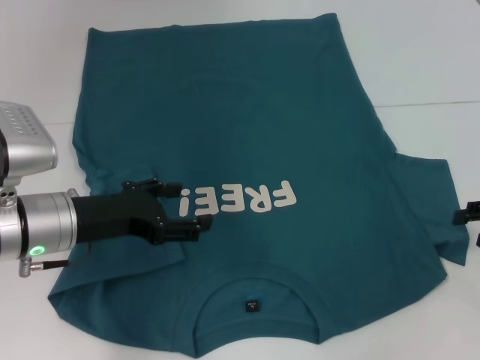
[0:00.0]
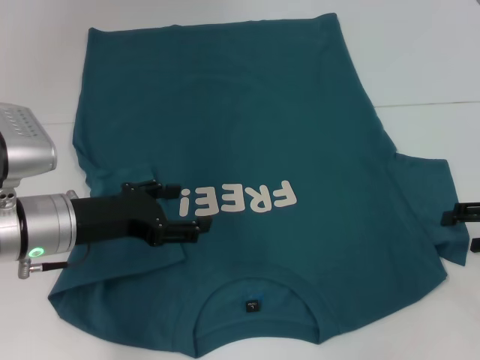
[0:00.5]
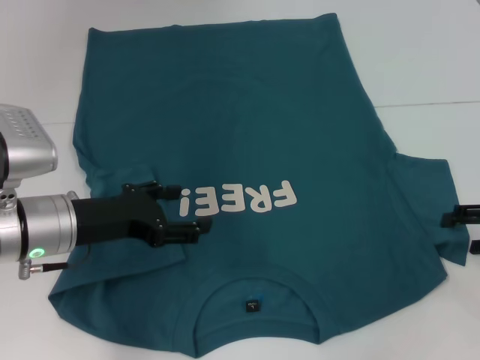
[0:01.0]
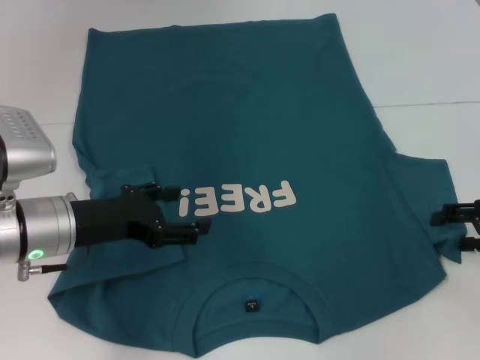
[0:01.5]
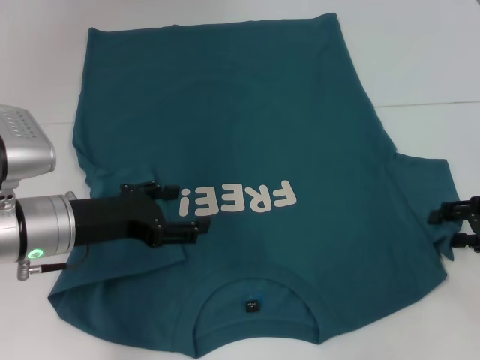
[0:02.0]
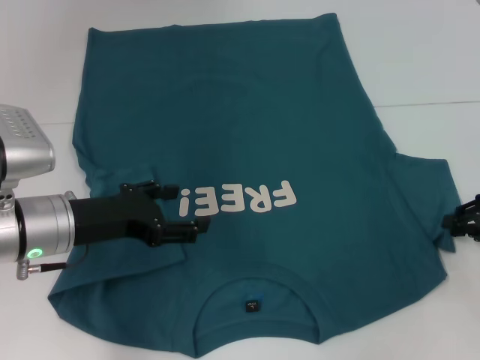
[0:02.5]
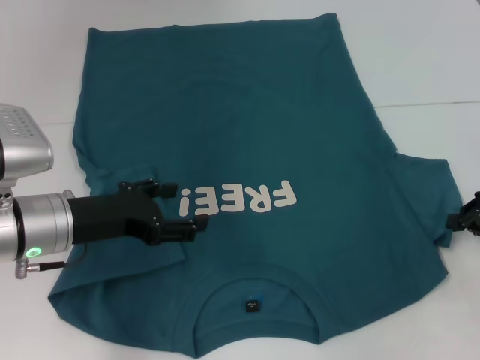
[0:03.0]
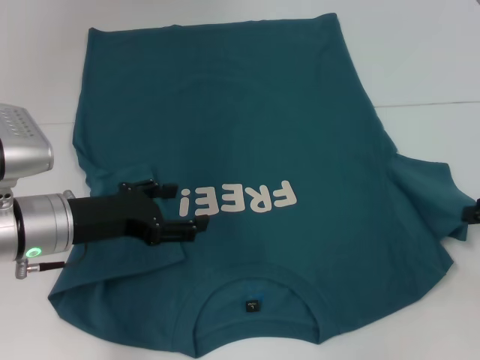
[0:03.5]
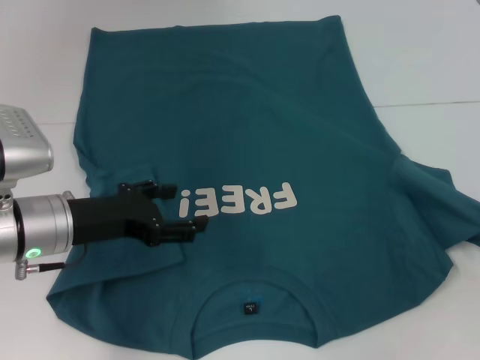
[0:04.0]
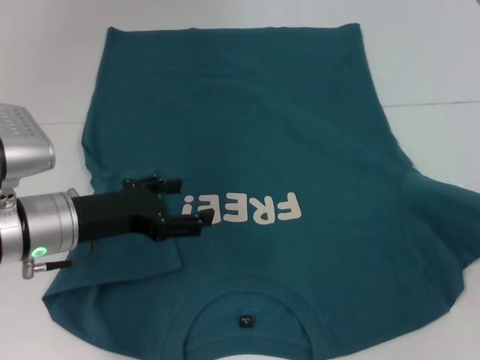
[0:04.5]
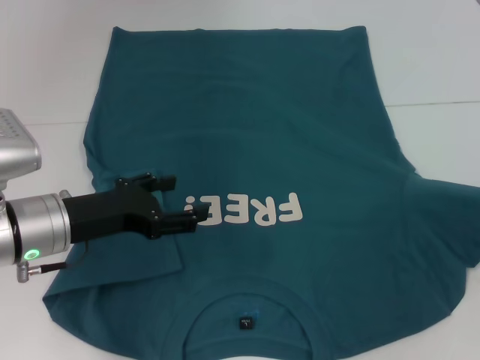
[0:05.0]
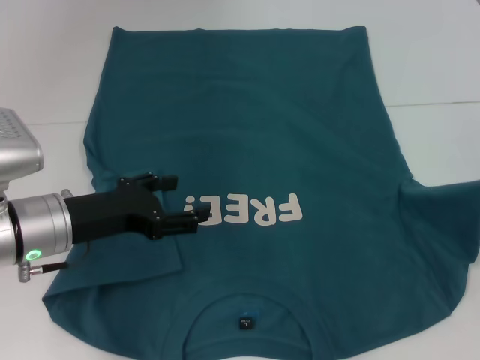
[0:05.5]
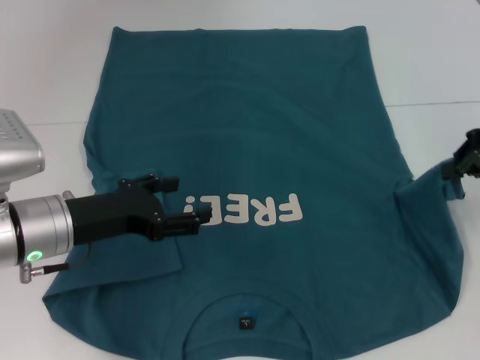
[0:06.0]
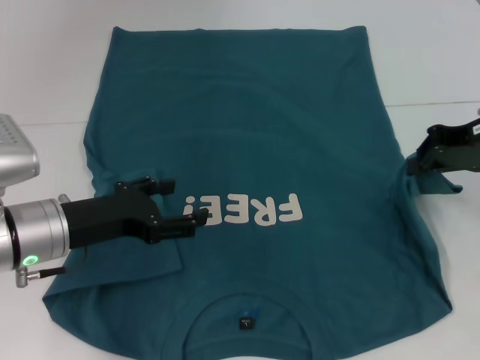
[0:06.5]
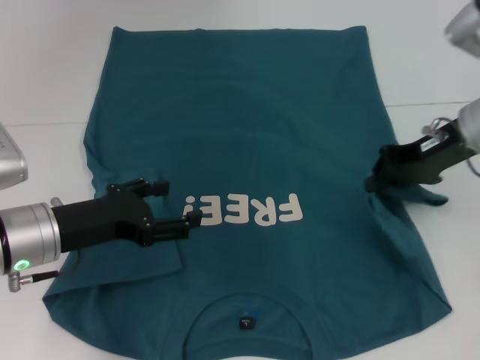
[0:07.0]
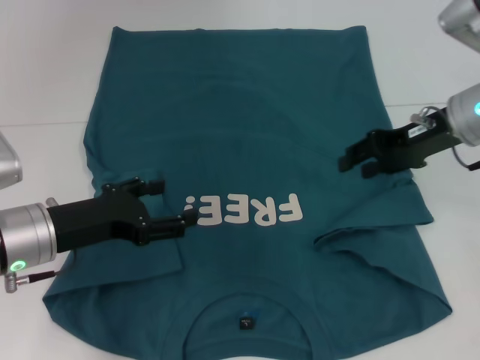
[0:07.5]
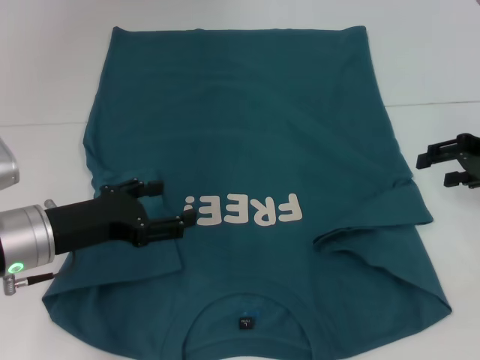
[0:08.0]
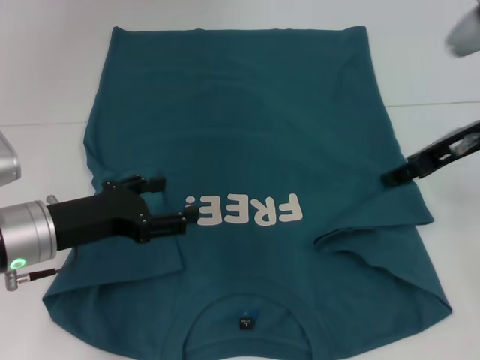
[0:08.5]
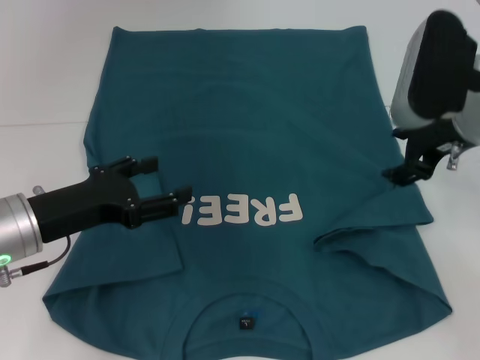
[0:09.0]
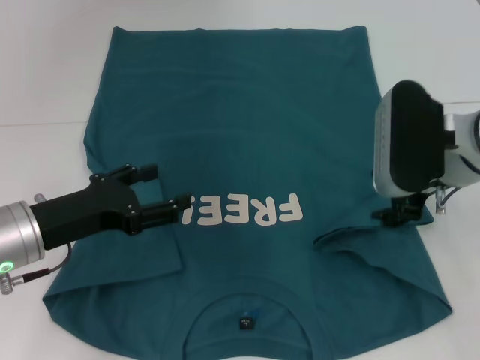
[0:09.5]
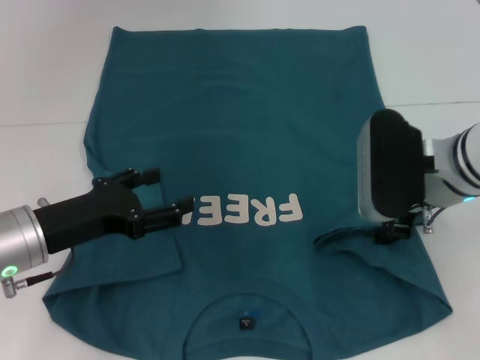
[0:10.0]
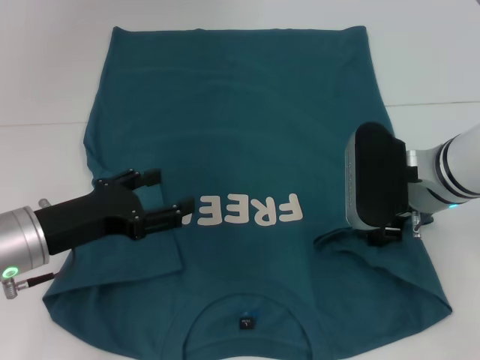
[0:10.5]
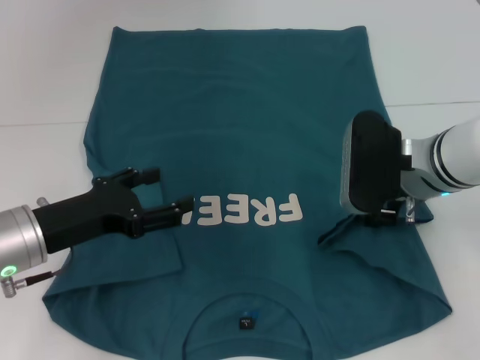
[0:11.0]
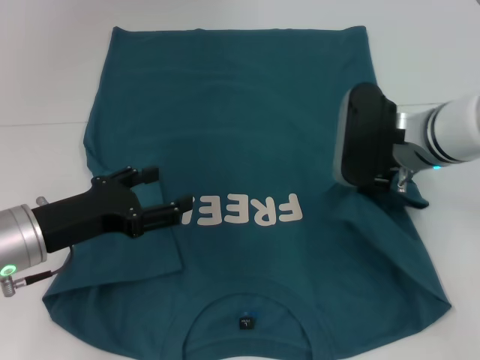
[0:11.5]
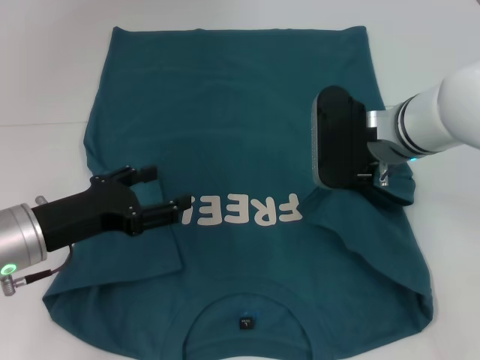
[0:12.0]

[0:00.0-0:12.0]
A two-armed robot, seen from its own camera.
0.0 to 2.0 s: The right gripper opens up.
2.0 to 4.0 s: The right gripper shifts by roughly 5 cm, and closes its fingers.
4.0 to 6.0 s: The right gripper heads upward, to the left and forward, covering about 10 cm.
6.0 to 8.0 s: The right gripper travels to the left and back again, some 10 cm each way, and opens up.
8.0 to 10.0 s: The right gripper is displaced to the left by about 15 cm.
10.0 to 12.0 s: The right gripper moves approximately 5 cm.

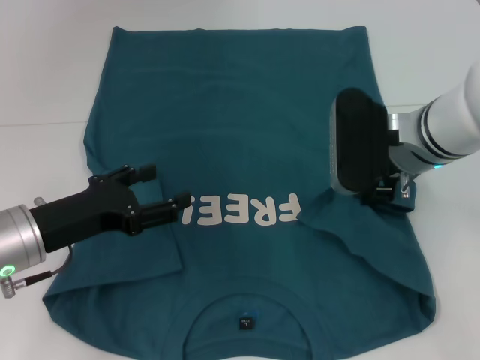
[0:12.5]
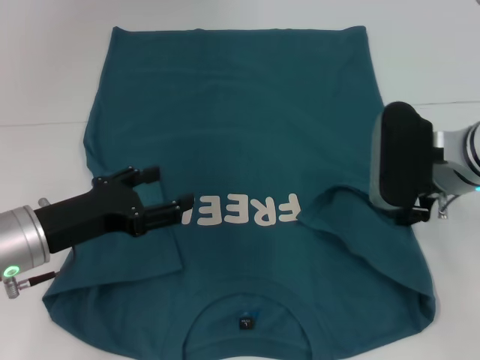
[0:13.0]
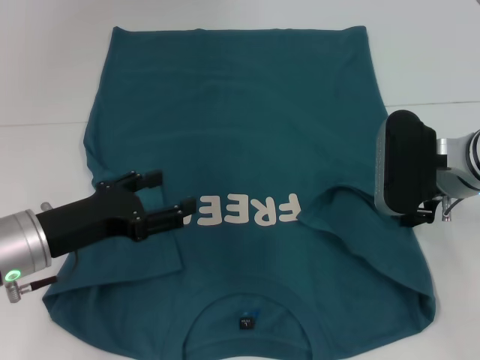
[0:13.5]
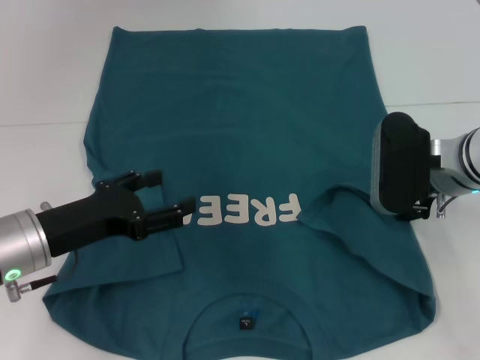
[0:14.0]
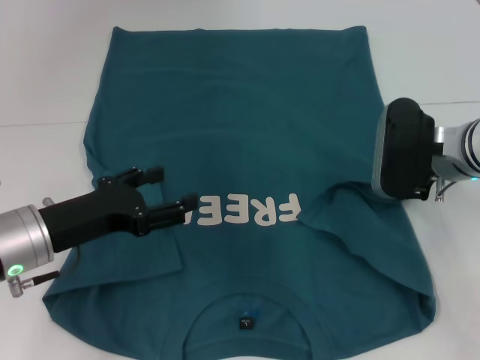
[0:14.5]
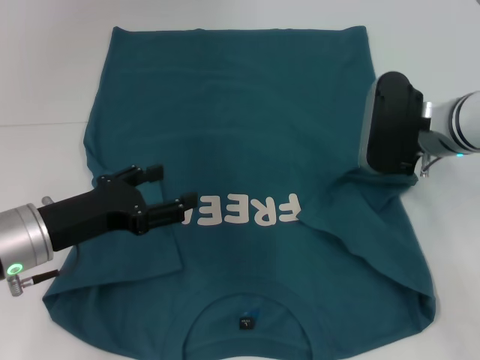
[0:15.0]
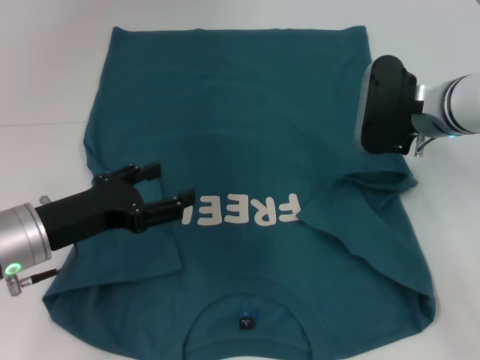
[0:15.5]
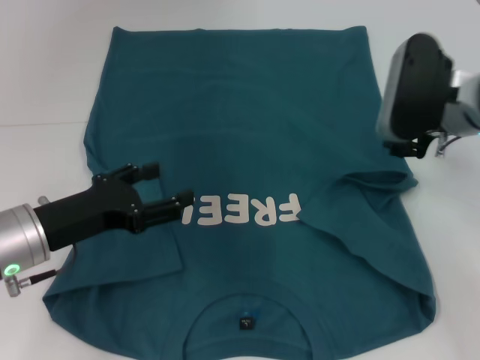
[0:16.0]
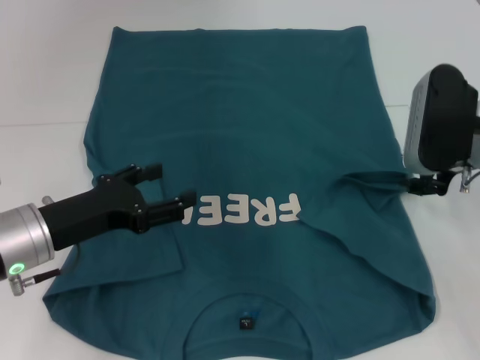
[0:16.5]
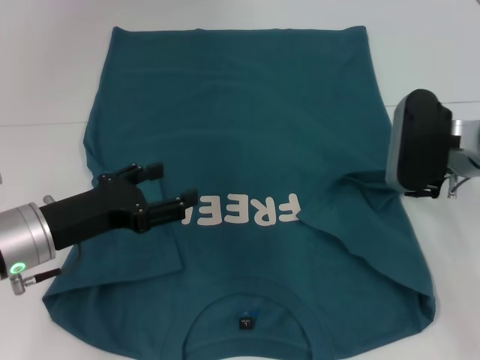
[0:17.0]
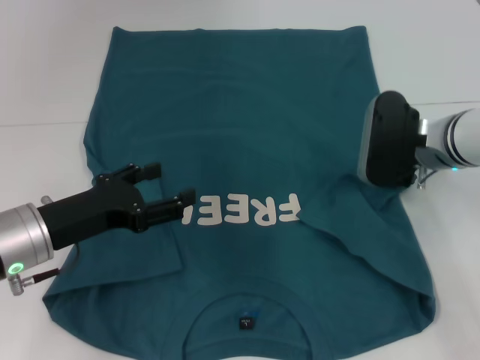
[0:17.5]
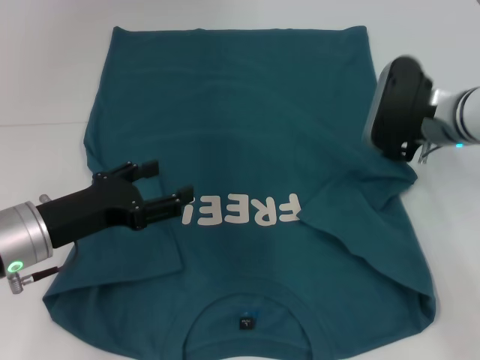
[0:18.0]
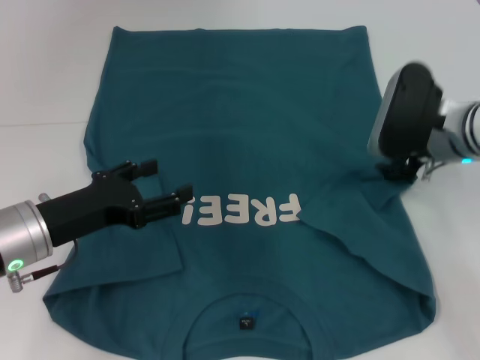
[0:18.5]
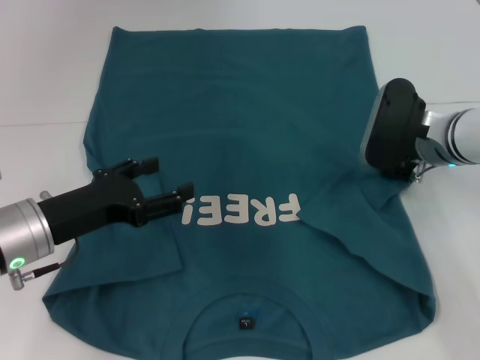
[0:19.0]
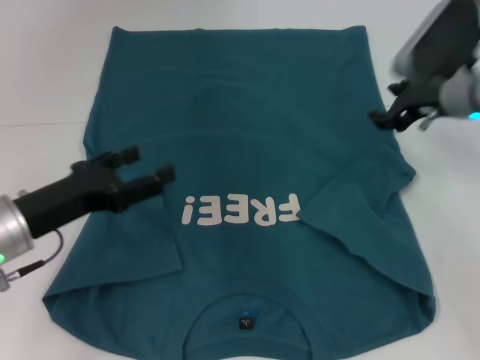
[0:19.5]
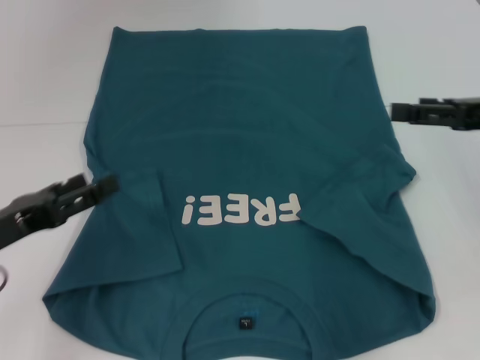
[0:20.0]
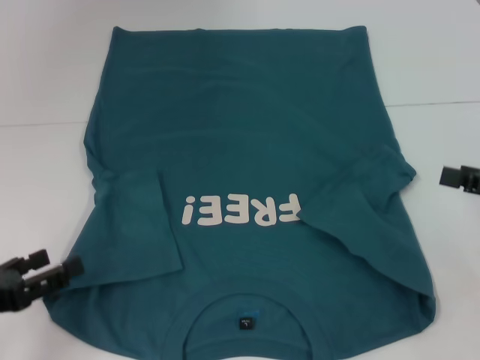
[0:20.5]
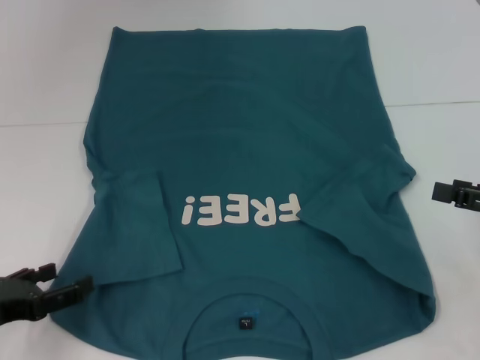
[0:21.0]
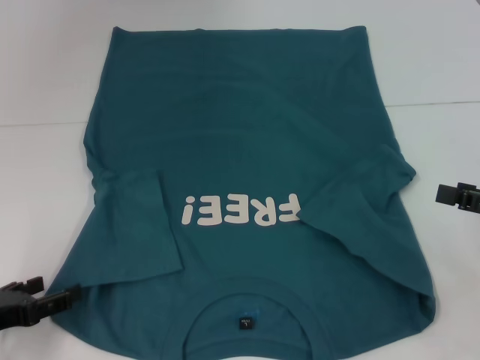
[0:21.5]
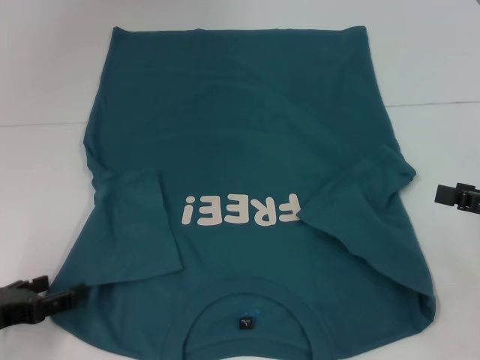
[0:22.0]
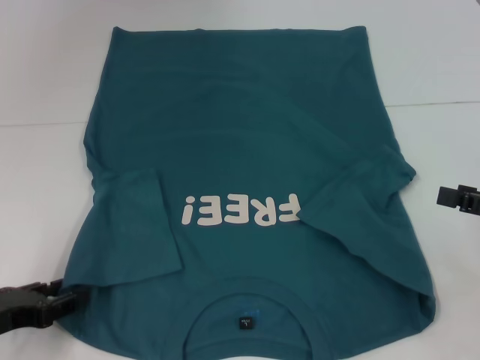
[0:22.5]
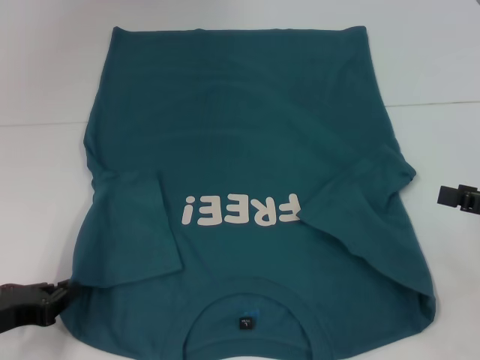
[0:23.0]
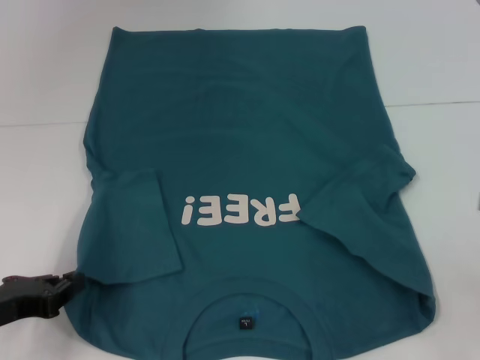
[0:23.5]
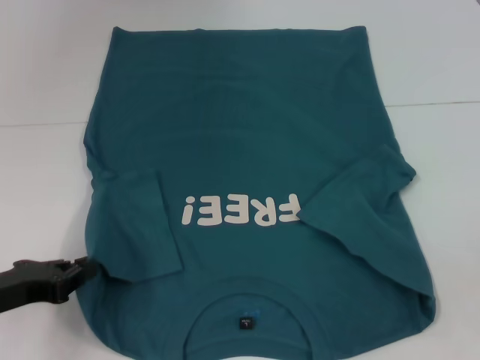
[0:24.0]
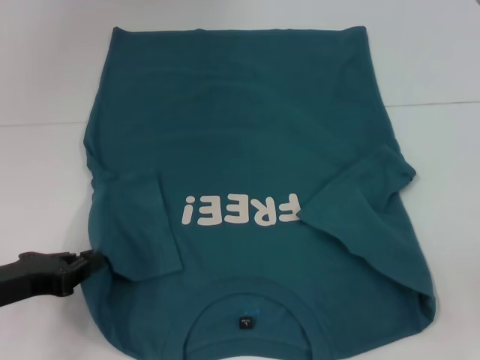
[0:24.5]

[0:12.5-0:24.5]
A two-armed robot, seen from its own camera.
Step, 12.5 to 19.0 s: Fold the bottom right sleeve to the right.
Step, 19.5 to 23.0 s: Grab the bottom left corner with your left hand.
12.5 to 14.5 s: The right gripper travels to the right by approximately 5 cm.
14.5 to 16.5 s: There are only small adjustments of the grippers.
18.5 to 20.5 s: The right gripper shifts about 20 cm backward and to the right, and opens up; the left gripper goes about 15 cm backward and to the left.
20.5 to 22.5 s: There are only small adjustments of the grippers.
22.5 to 24.5 s: The left gripper closes.

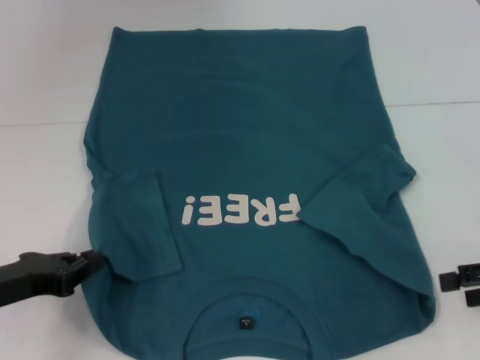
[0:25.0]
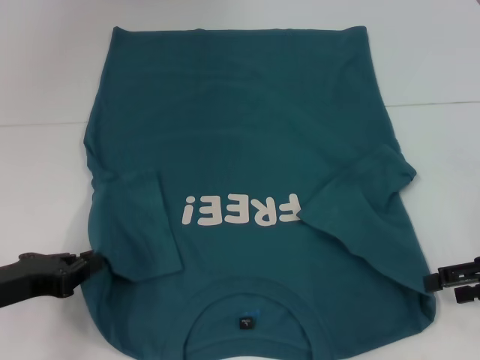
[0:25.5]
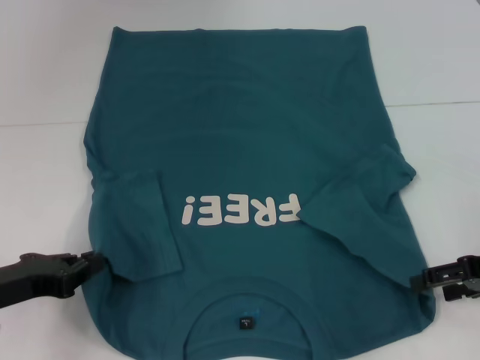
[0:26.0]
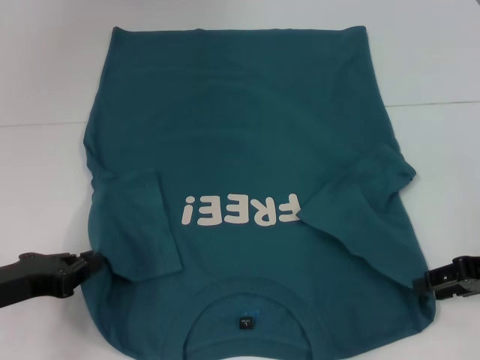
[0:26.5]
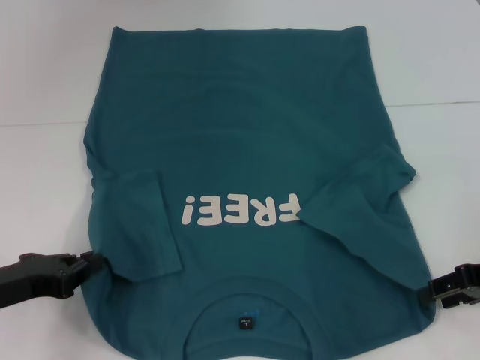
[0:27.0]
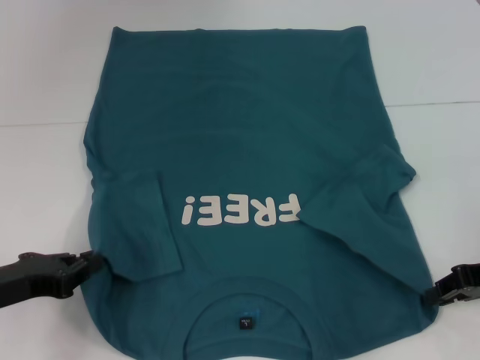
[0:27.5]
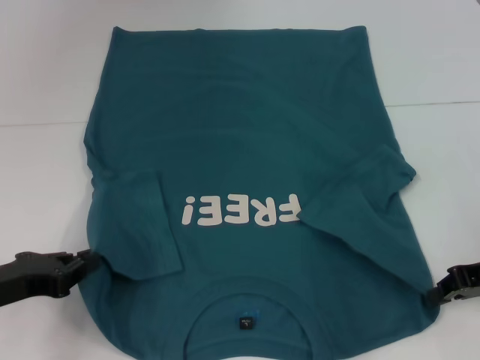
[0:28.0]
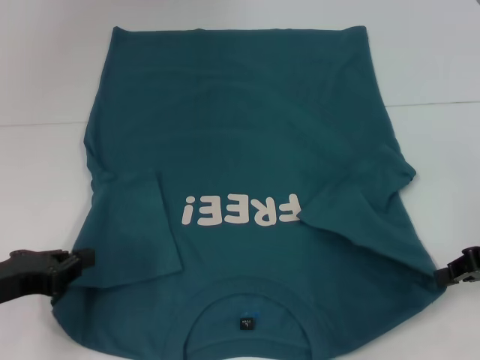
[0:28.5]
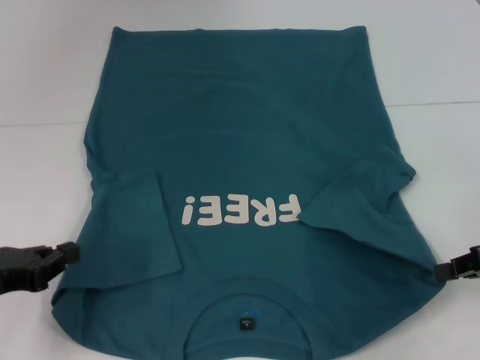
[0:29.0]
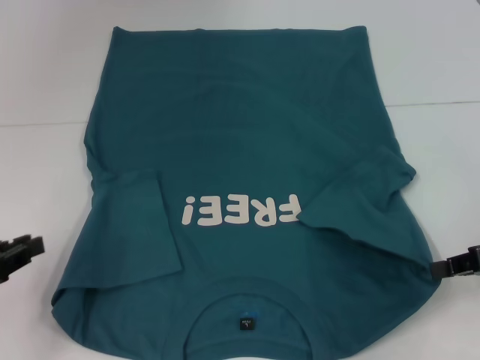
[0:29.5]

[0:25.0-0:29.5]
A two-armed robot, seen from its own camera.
Step, 25.0 to 27.5 s: Grab the bottom right corner with your right hand.
25.0 to 27.0 s: The right gripper changes place by roughly 5 cm.
27.0 to 29.5 s: The left gripper shifts by approximately 5 cm; the right gripper closes its fingers.
